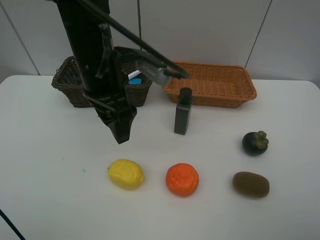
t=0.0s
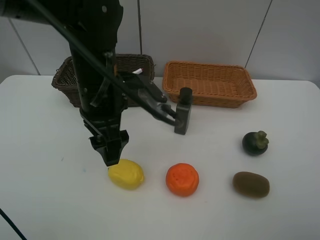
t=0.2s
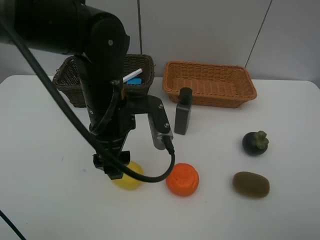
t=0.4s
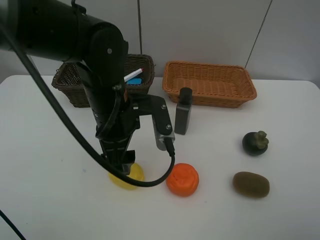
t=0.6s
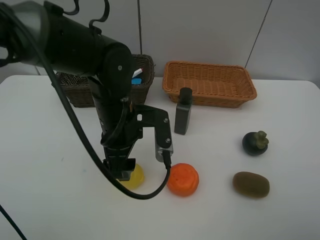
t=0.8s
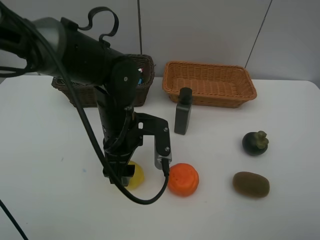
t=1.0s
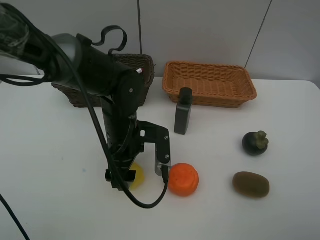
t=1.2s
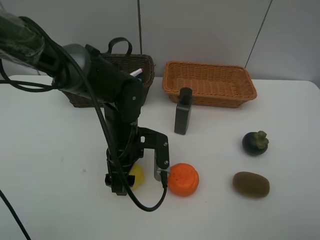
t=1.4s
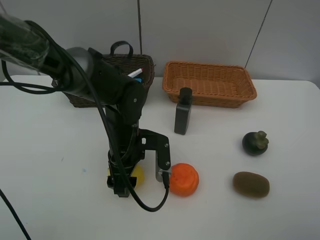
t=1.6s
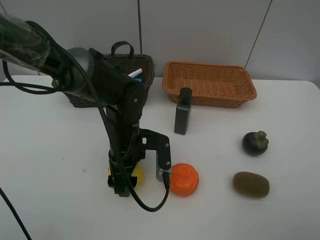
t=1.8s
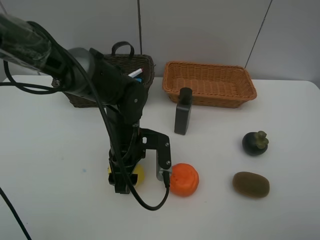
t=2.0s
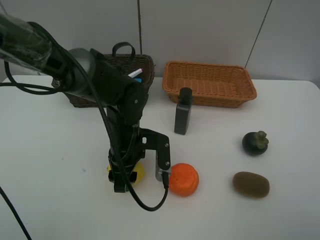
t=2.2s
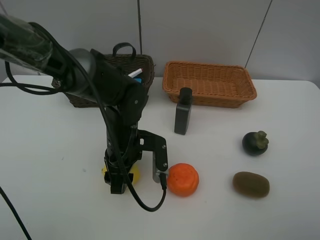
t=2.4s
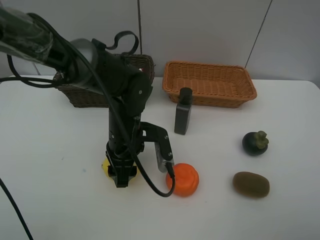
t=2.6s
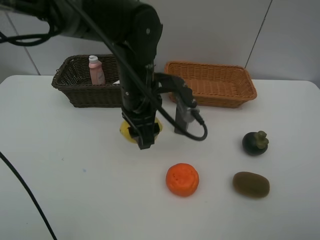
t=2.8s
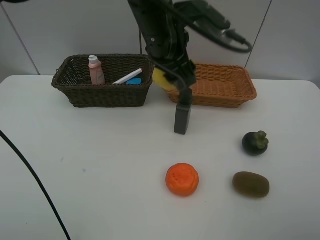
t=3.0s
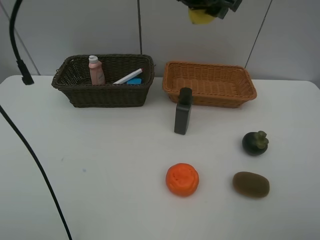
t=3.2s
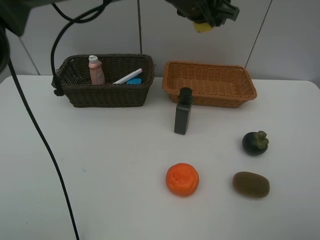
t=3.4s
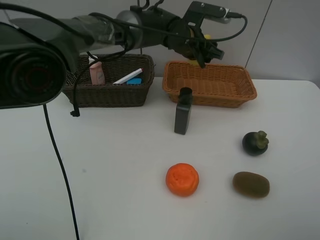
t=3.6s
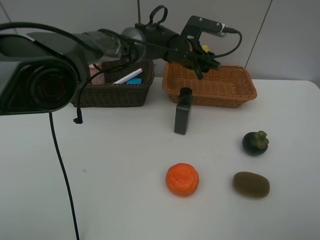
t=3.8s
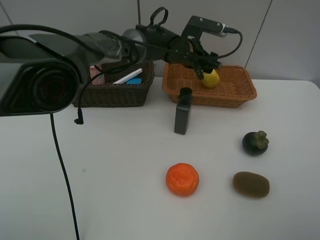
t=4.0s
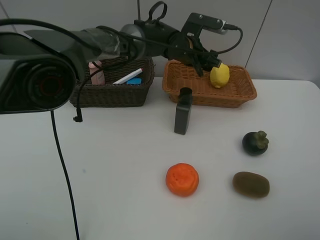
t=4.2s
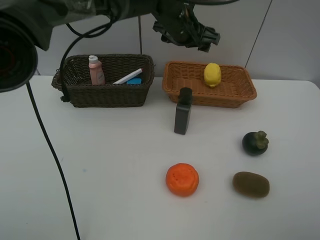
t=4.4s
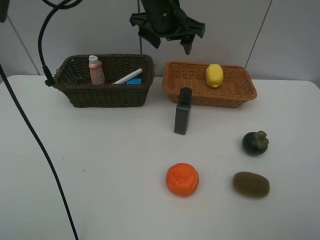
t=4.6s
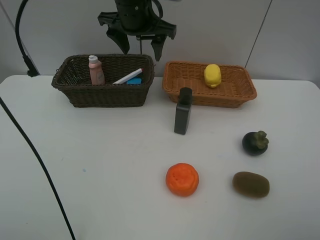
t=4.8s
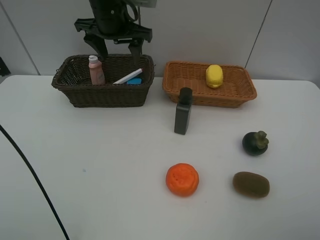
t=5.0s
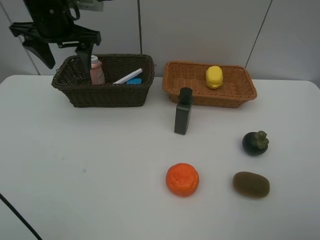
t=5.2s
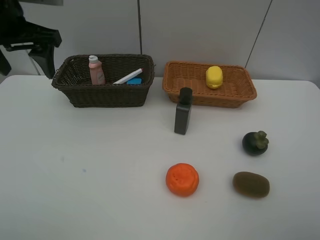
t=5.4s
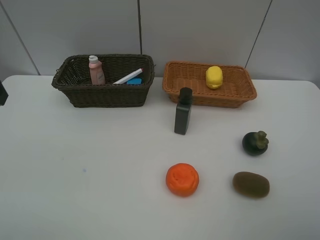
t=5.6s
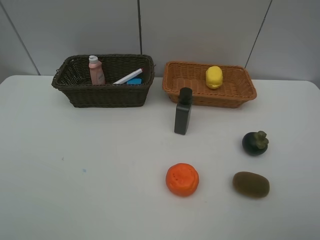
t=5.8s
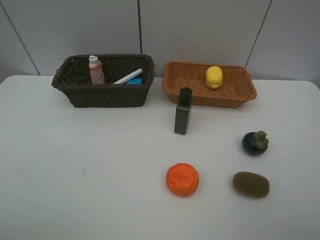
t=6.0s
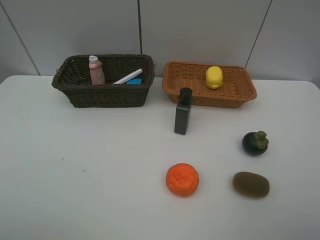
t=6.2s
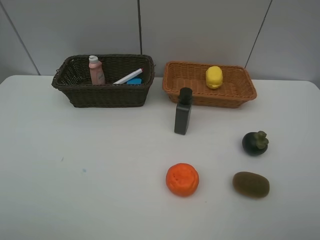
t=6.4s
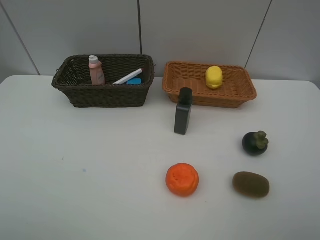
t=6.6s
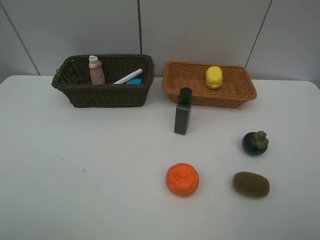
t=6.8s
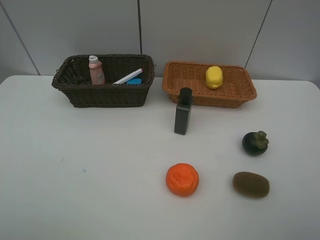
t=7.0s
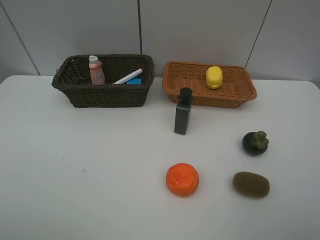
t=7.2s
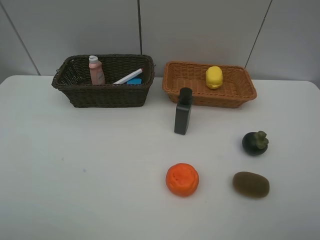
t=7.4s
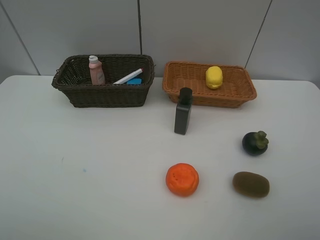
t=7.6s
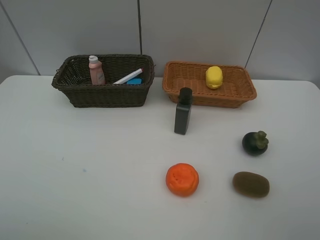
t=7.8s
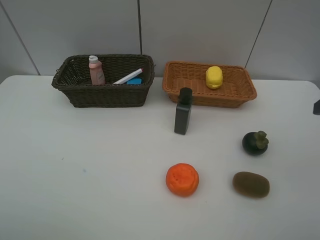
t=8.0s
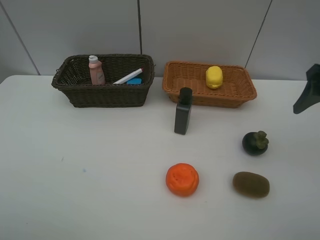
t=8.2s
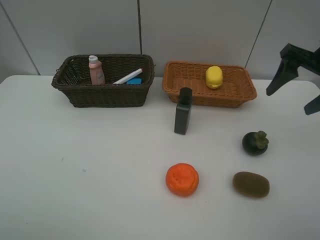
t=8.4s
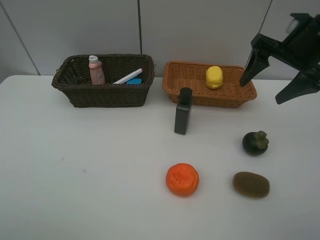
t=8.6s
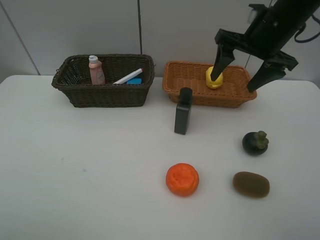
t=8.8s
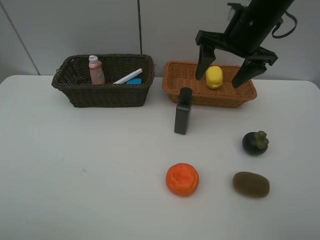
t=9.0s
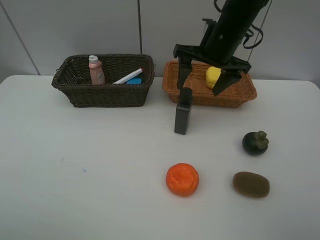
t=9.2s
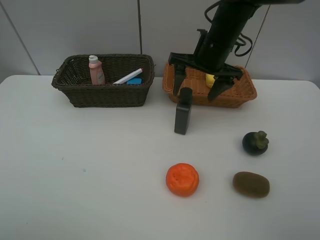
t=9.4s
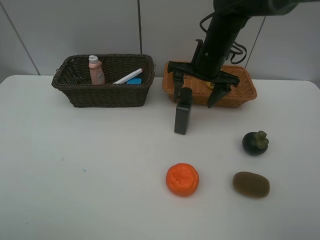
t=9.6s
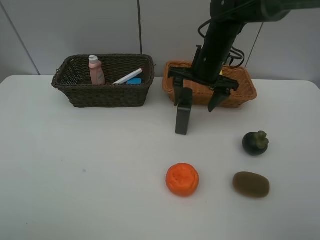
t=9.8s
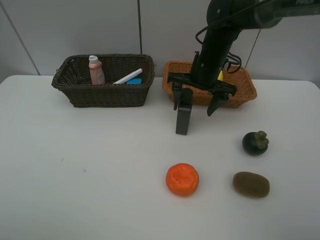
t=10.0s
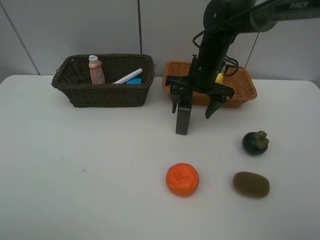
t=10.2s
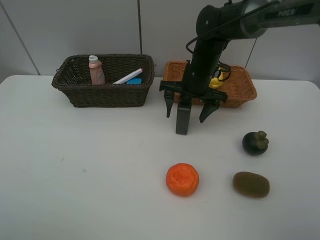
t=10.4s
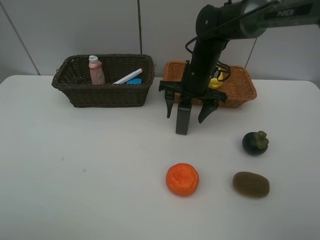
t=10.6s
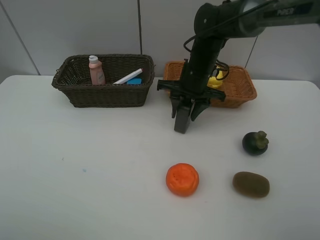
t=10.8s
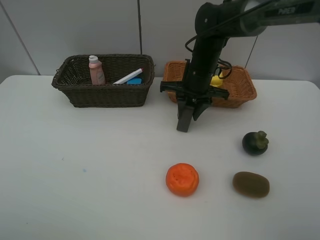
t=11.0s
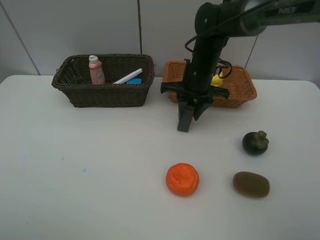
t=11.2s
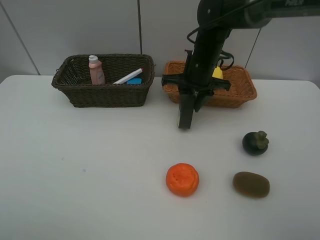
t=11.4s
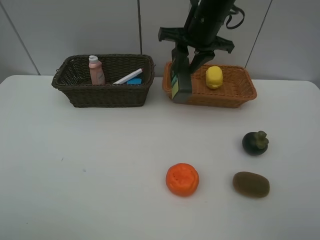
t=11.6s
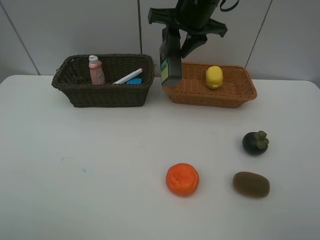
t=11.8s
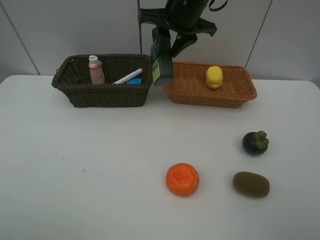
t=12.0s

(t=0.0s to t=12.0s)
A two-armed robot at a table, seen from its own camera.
Task of the whole recording: Place multiple objects separately in different baskets.
Step, t=0.0s - t=2.6s: Pick up the lemon with left gripper.
Step, t=2.8s - t=4.2s: Place the lemon in the light basket with left gripper.
Step, t=4.4s - t=11.4s: Pick up the hard facial cleanser with right gripper.
t=0.0s - t=1.6s: The left gripper travels downward by roughly 15 cm.
t=1.6s - t=3.0s: The left gripper moves upward and forward, about 20 cm.
t=3.0s - t=4.4s: The left gripper is displaced forward by approximately 10 cm, and moves about 15 cm downward and comes back.
t=4.4s - t=6.0s: The left gripper travels backward and to the left by roughly 50 cm.
t=7.6s - t=9.0s: The right gripper shifts approximately 35 cm forward and to the left.
t=9.0s - t=10.4s: The right gripper shifts some 15 cm downward and to the left.
t=10.4s - t=12.0s: The right gripper heads upward, covering some 15 cm, and closes its fingers.

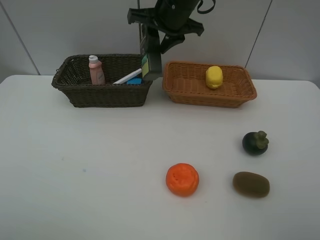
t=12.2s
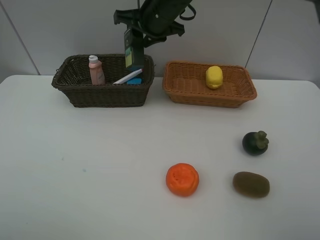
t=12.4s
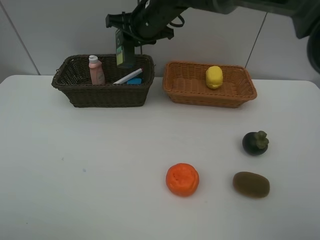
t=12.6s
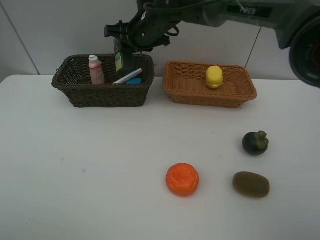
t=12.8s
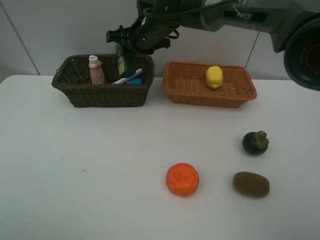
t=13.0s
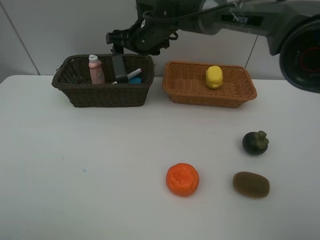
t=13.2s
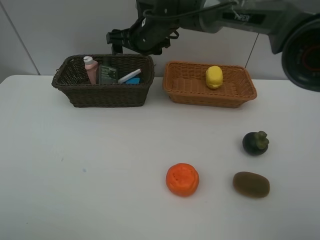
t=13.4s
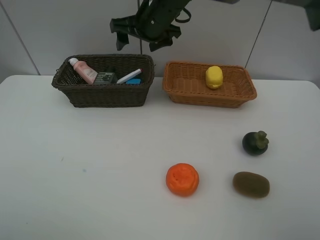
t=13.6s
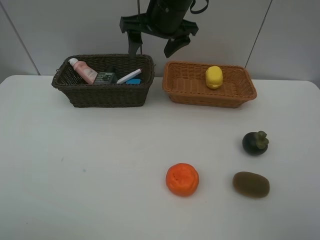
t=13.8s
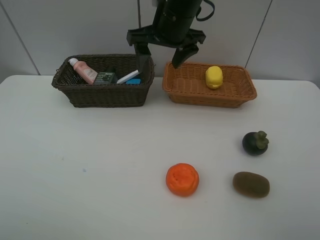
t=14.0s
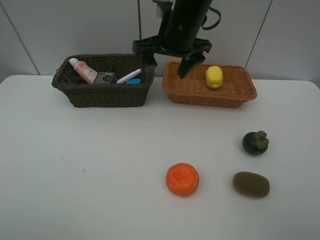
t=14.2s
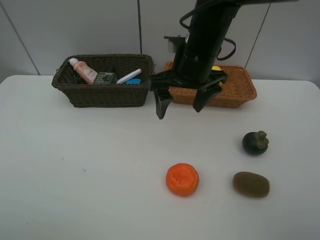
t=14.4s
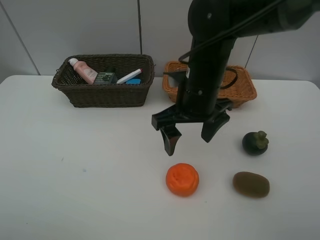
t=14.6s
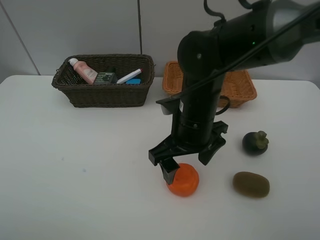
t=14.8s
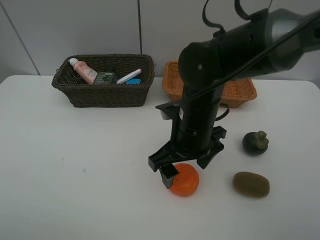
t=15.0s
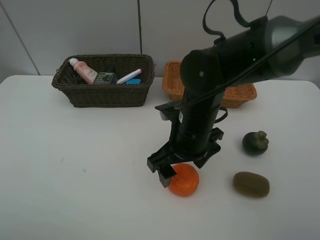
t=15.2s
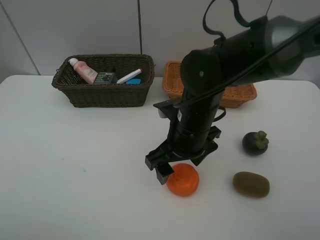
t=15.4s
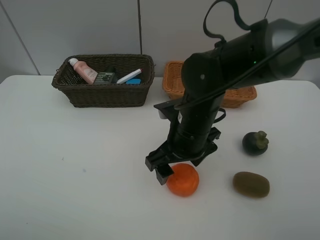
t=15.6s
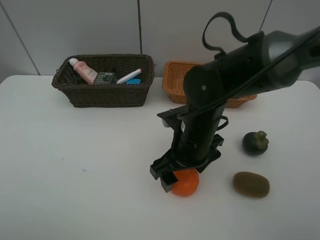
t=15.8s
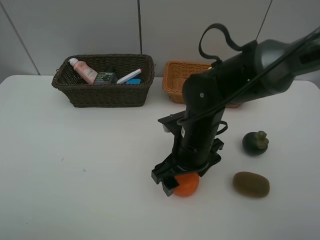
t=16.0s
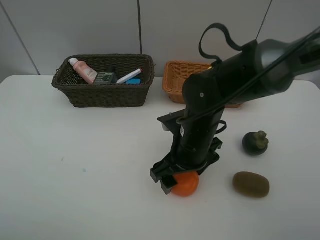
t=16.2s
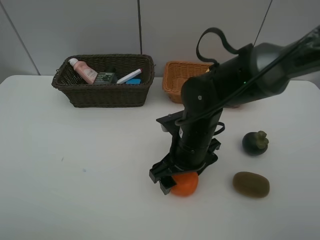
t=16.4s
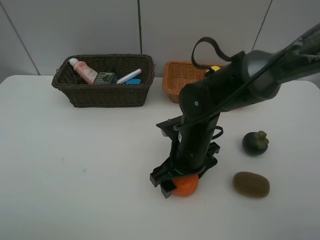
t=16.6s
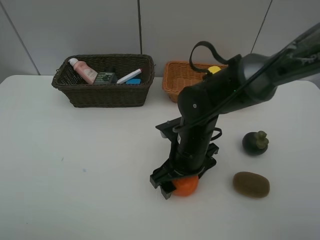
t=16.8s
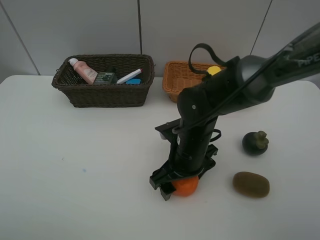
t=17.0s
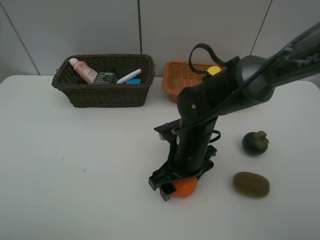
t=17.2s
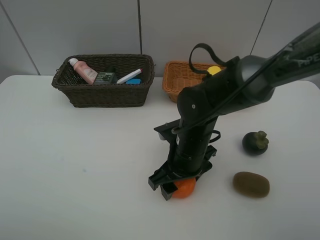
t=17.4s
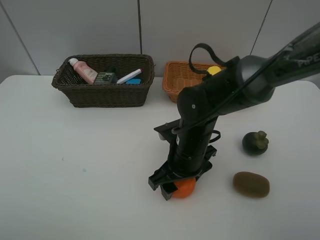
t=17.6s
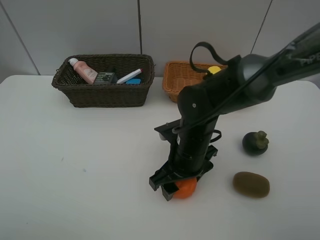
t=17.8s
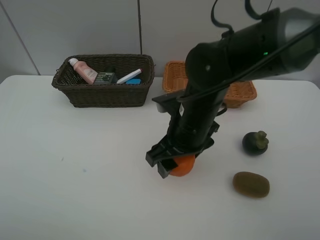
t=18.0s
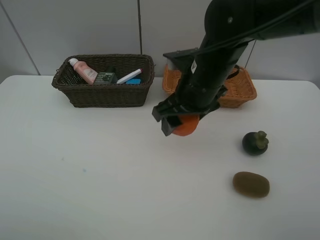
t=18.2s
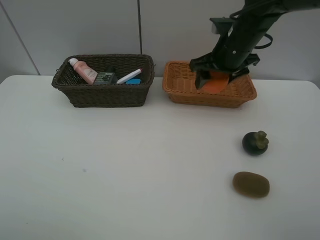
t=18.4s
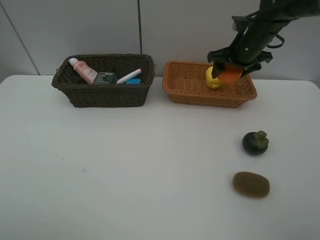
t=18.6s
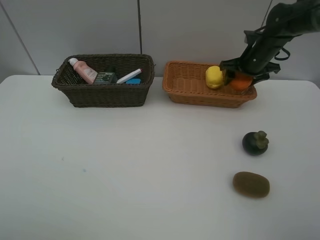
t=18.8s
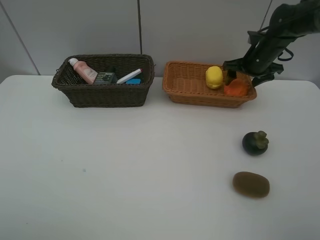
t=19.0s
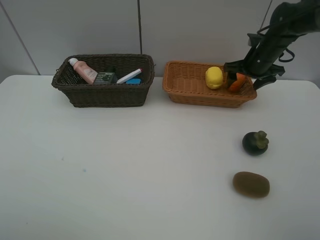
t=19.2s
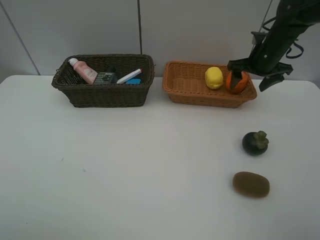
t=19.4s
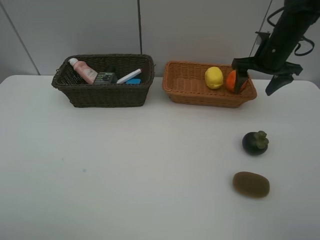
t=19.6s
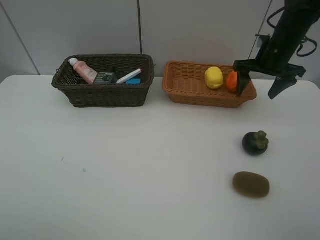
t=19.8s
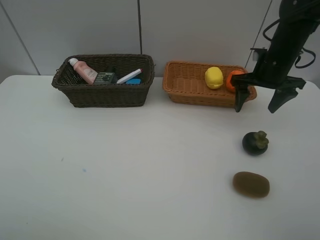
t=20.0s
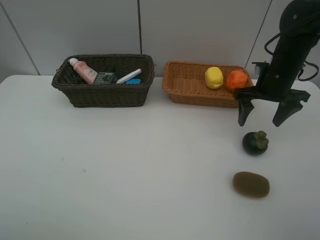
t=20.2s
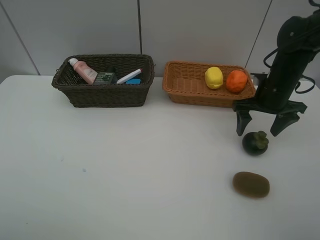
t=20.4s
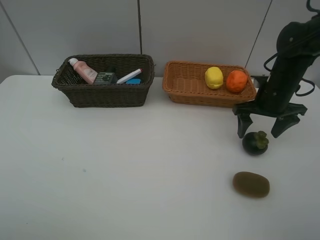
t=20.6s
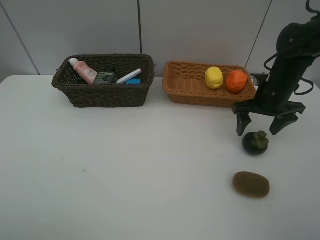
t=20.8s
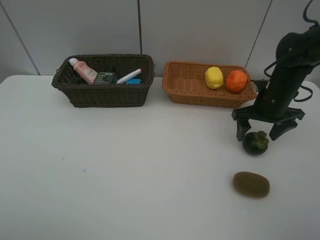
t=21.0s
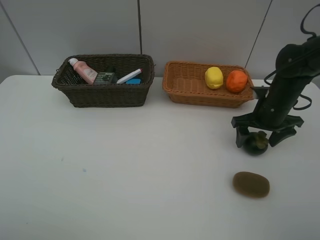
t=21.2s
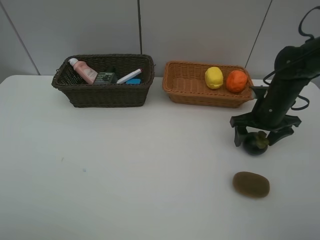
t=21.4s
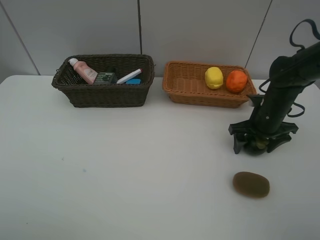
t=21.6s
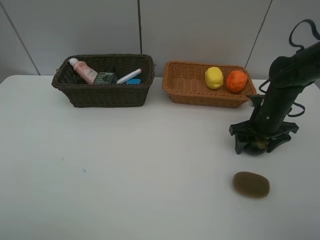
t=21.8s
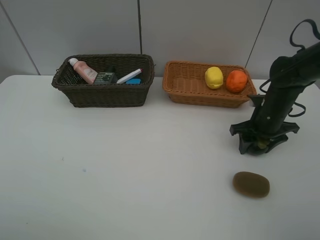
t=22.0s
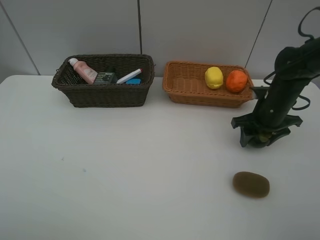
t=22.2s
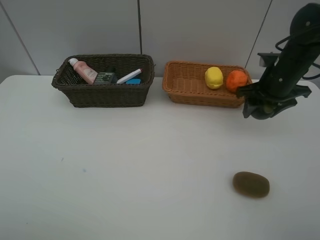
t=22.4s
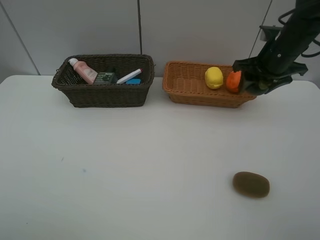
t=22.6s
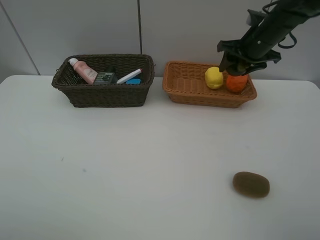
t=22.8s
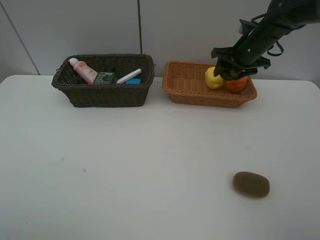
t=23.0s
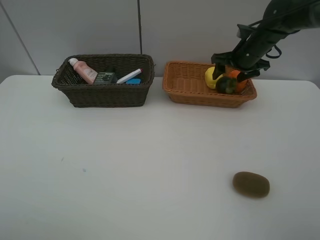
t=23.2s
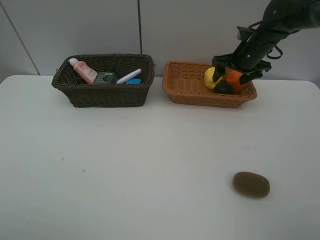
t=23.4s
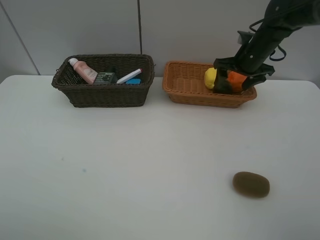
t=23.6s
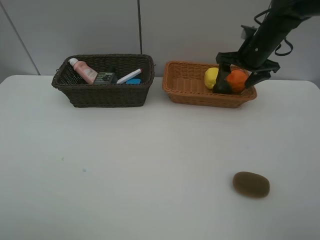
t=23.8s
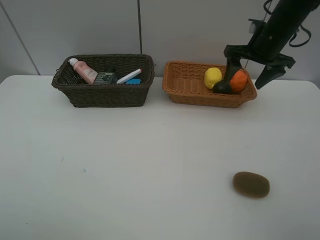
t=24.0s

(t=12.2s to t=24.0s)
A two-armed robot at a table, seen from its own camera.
Task of the whole recording: Place multiple objects separately in different baskets.
Step, t=12.2s - t=13.4s: Place the hard facial cleanser in the dark basket with right gripper.
Step, t=13.6s - t=17.8s: Pick up the orange with right gripper.
Step, t=18.0s - t=19.2s: Place the orange in the light basket with right gripper.
Step, t=19.4s - t=22.2s: Pick up the mangosteen with right gripper.
Step, t=22.4s - t=23.4s: Place the mangosteen in the light basket with right gripper.
t=12.2s - t=13.6s: The right gripper opens up.
t=13.6s - t=15.2s: The right gripper heads backward and downward, covering roughly 20 cm.
t=15.2s - t=16.6s: The grippers move only a little.
t=16.6s - t=18.2s: The right gripper heads upward and forward, covering roughly 15 cm.
t=18.2s - t=19.6s: The right gripper travels to the right and forward by approximately 20 cm.
t=19.6s - t=21.0s: The right gripper goes about 10 cm backward and downward.
t=21.0s - t=22.6s: The right gripper travels upward and forward by about 10 cm, and closes up.
t=22.6s - t=24.0s: The right gripper opens up.
